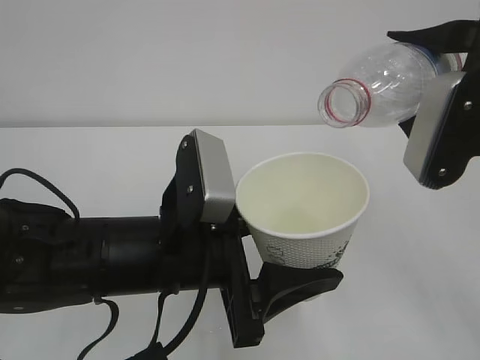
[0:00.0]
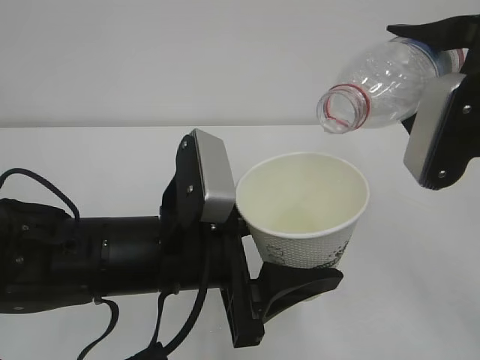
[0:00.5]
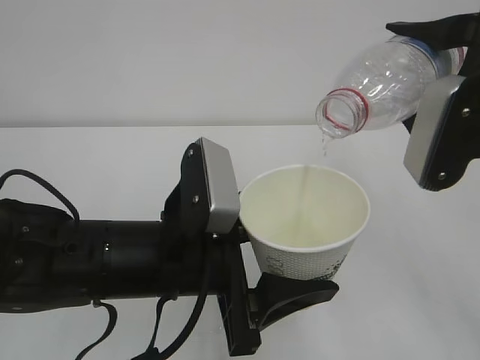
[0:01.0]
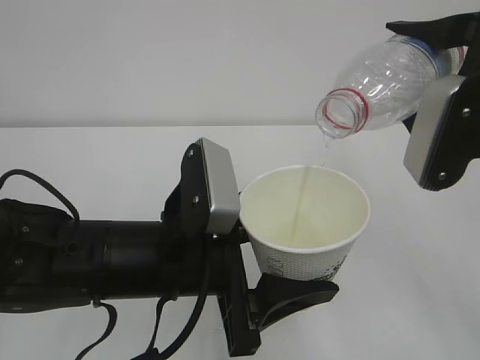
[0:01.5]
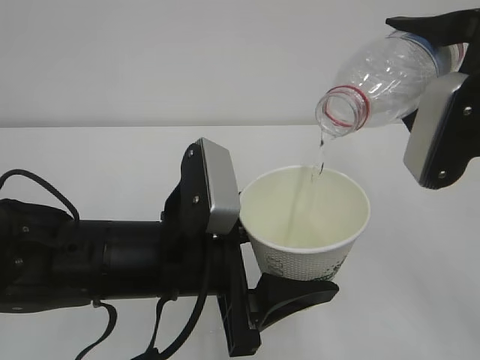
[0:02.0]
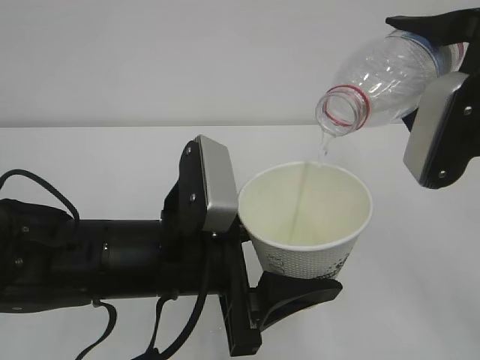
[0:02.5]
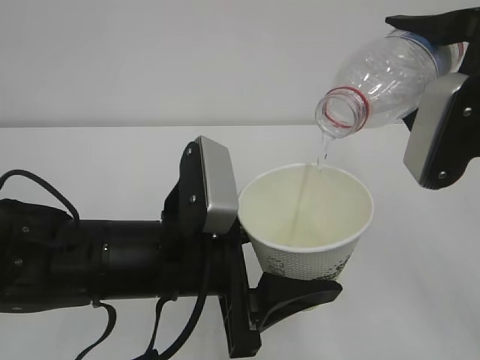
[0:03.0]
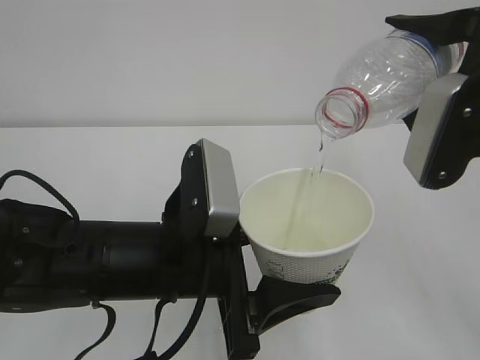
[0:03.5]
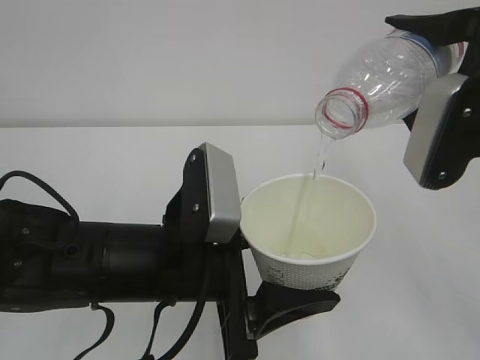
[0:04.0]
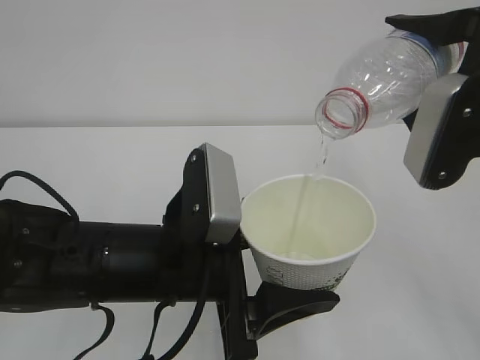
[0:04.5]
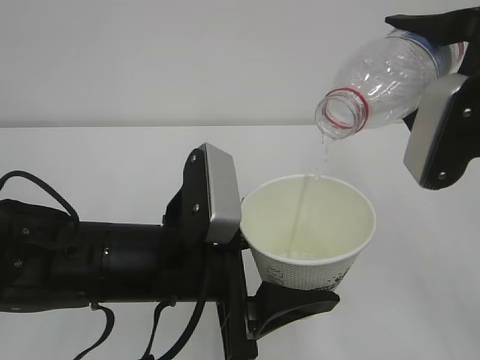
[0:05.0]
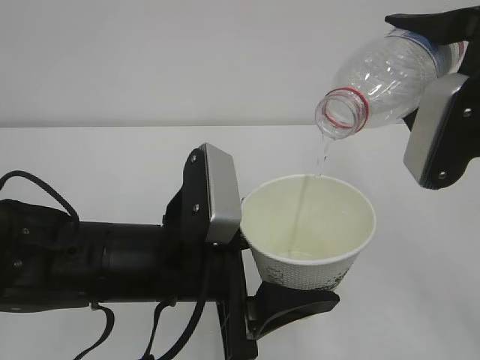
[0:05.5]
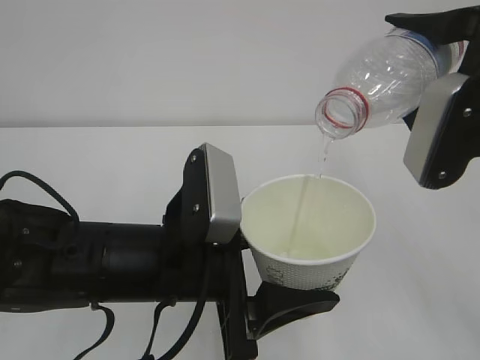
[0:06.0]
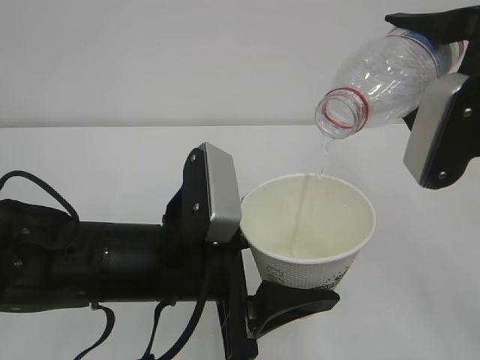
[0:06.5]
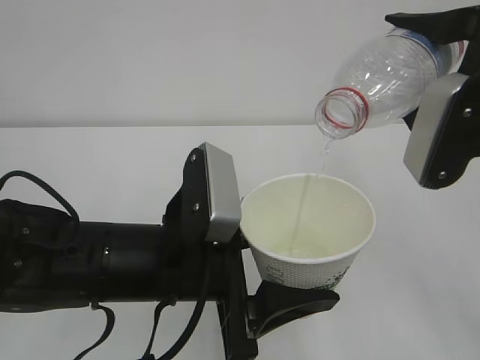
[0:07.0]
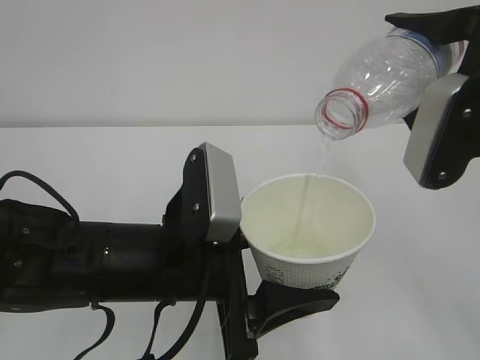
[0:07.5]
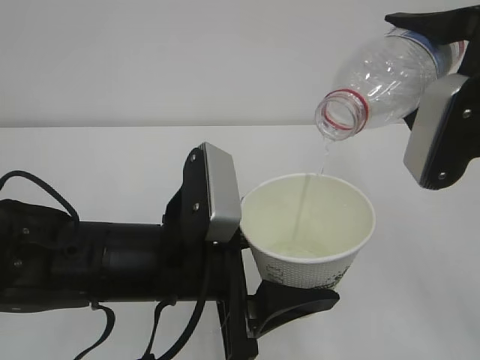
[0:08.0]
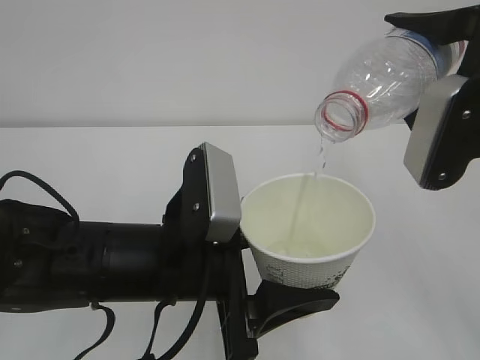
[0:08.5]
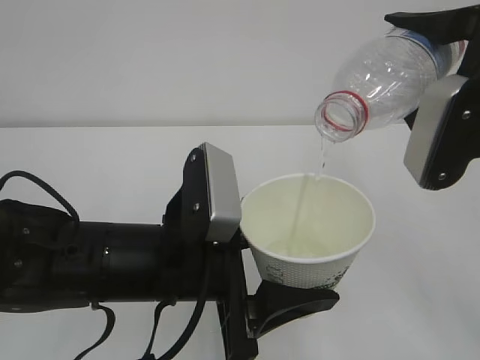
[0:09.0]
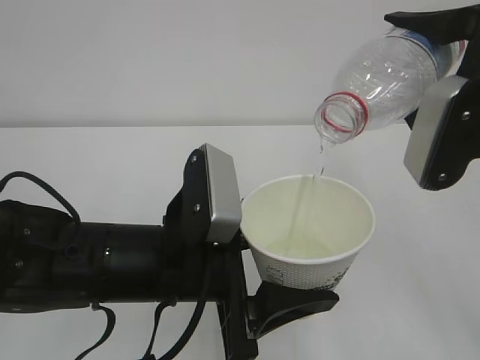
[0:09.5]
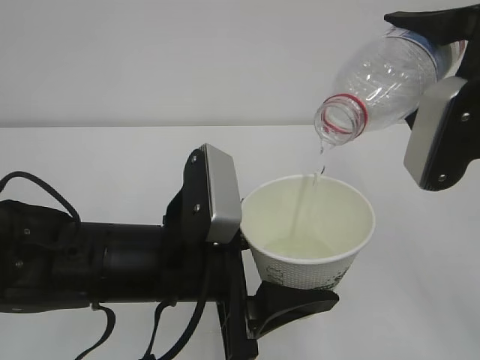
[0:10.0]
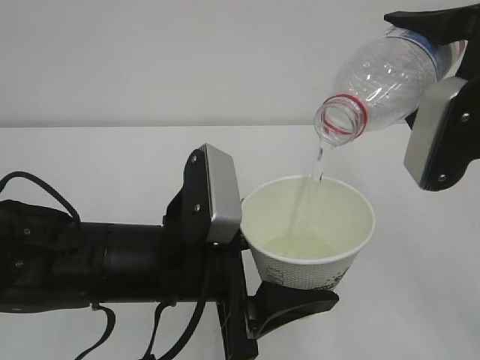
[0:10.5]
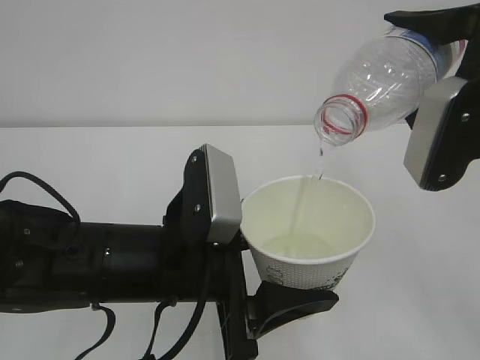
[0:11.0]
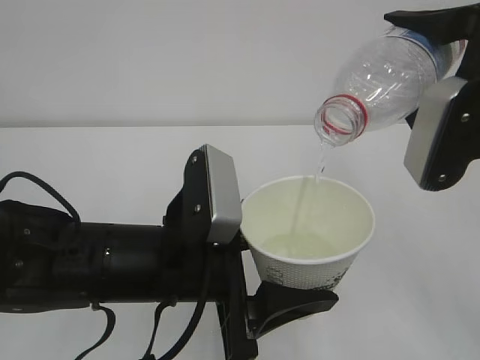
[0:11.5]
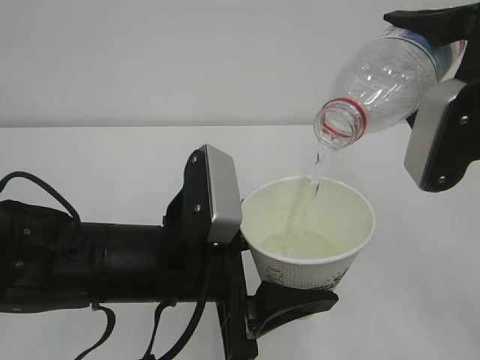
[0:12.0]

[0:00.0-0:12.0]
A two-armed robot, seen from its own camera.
0:00.0 to 0:02.0: The grippers make only small movements.
0:02.0 to 0:10.0: Both grippers stay put.
0:10.0 to 0:12.0: Both grippers stay about where they are.

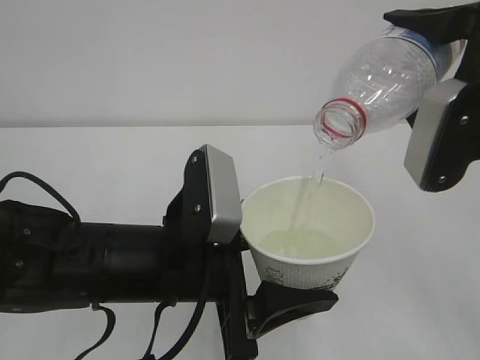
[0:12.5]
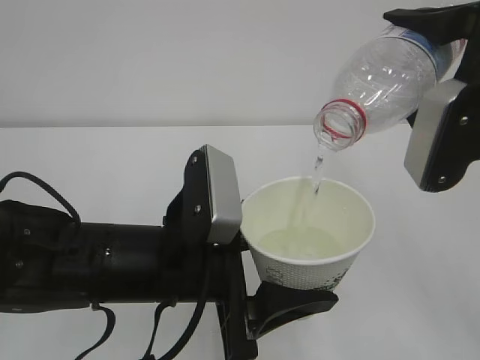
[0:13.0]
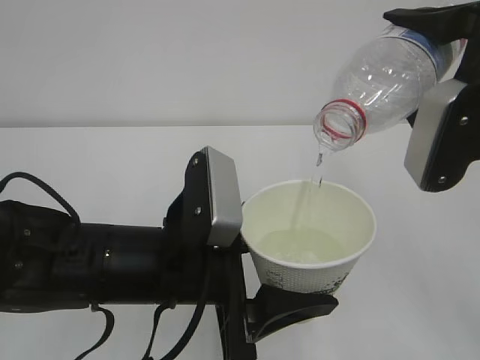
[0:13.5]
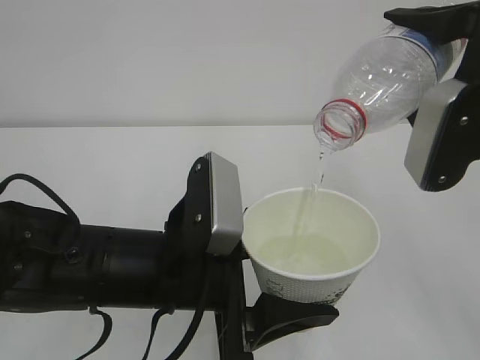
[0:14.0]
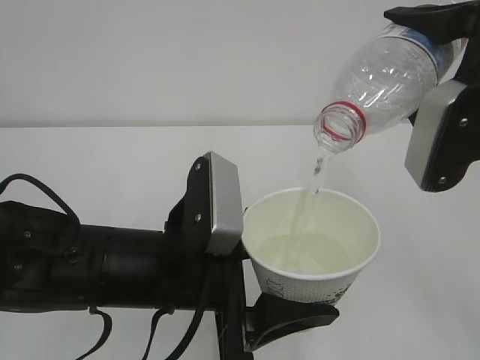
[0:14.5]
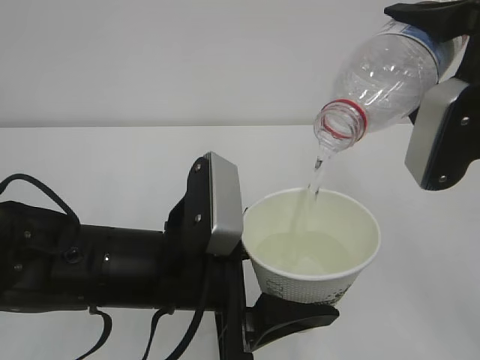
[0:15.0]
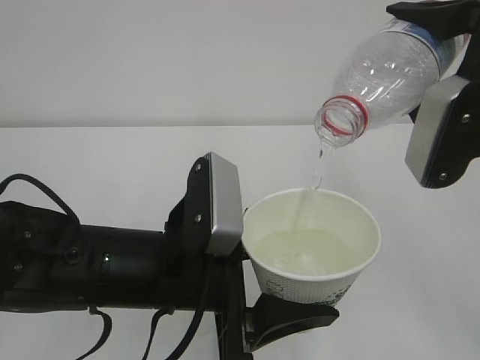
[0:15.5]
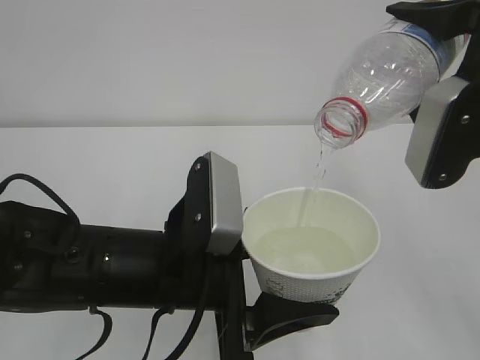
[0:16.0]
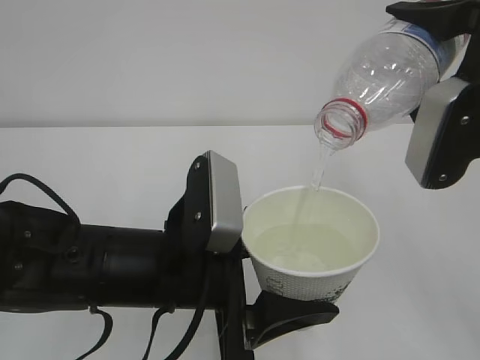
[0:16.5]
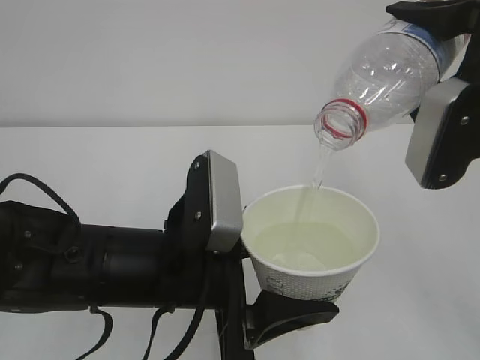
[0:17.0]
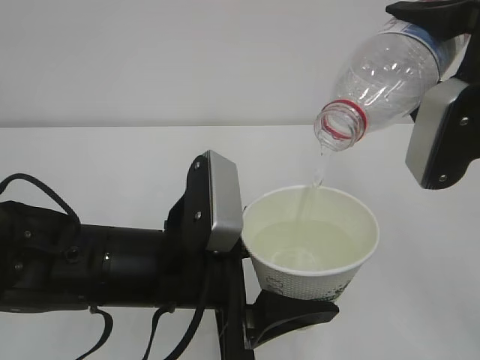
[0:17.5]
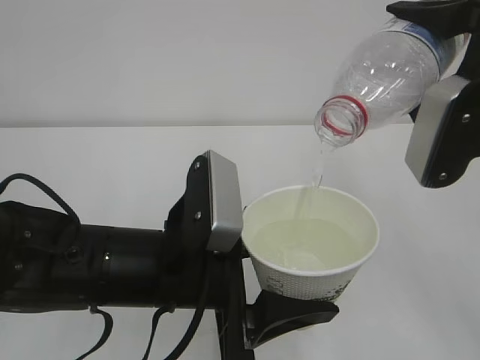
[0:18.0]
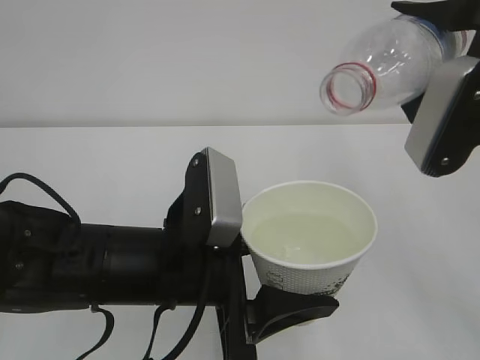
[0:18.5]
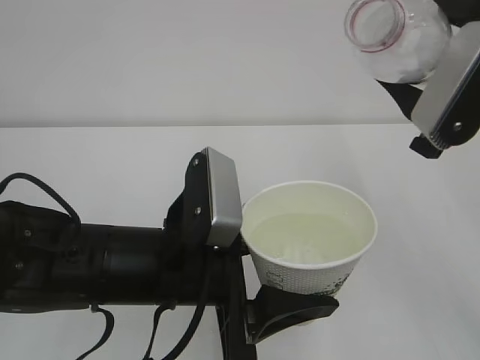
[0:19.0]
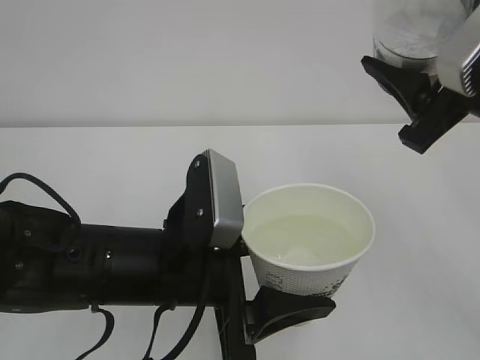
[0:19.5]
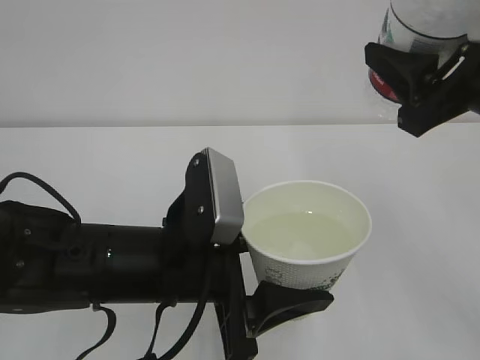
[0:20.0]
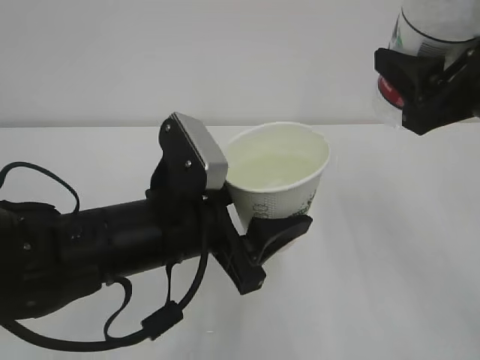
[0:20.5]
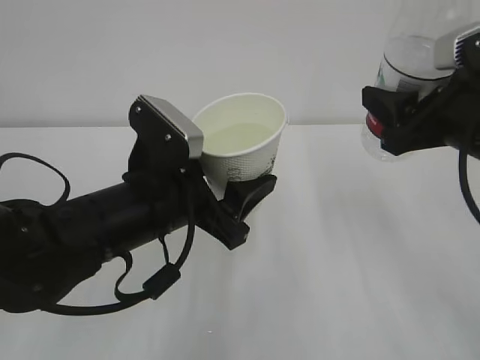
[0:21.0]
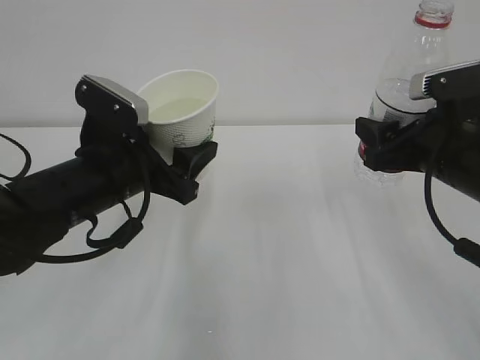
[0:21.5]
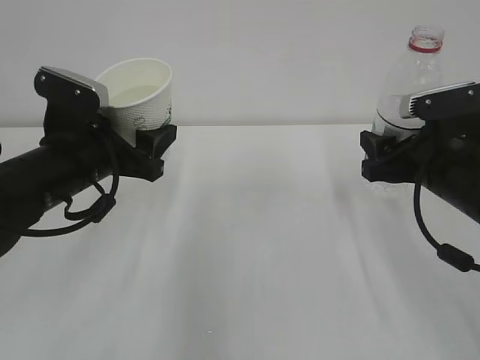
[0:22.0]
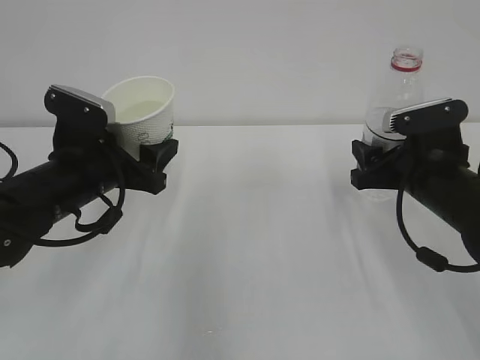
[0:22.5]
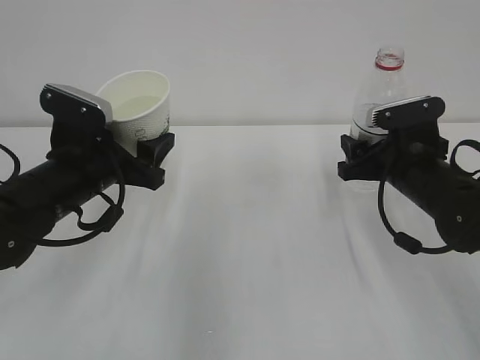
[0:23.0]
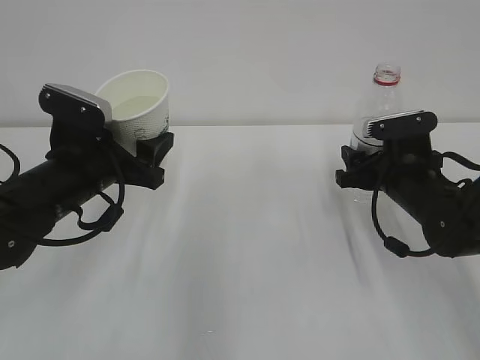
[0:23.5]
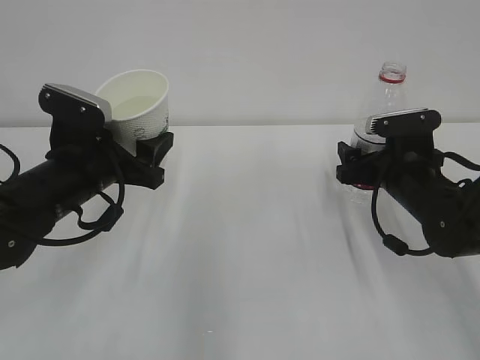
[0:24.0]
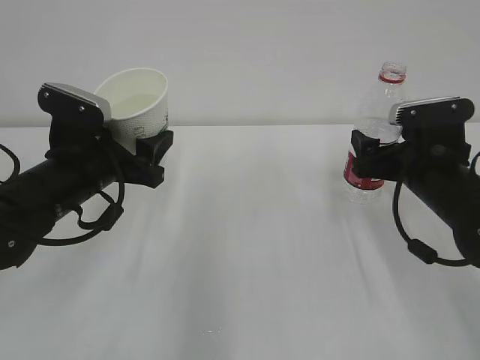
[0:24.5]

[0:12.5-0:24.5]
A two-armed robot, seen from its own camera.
0:12.5 to 0:16.5: Both grippers stay put.
0:16.5 to 0:18.5: The grippers move only a little.
0:20.5 to 0:22.5: The right gripper travels downward and forward by some 15 cm; the left gripper goes about 15 cm to the left and forward.
0:22.5 to 0:24.5: The right gripper opens.

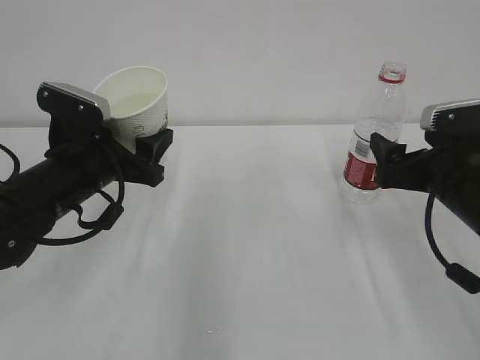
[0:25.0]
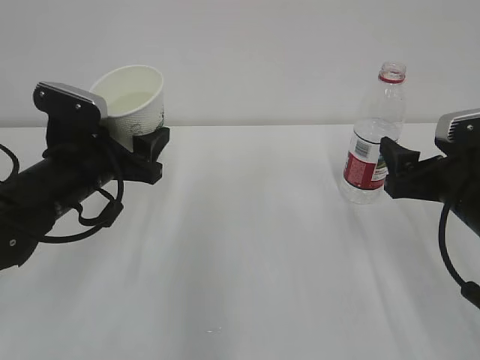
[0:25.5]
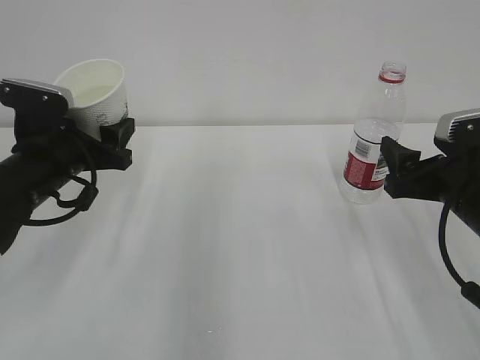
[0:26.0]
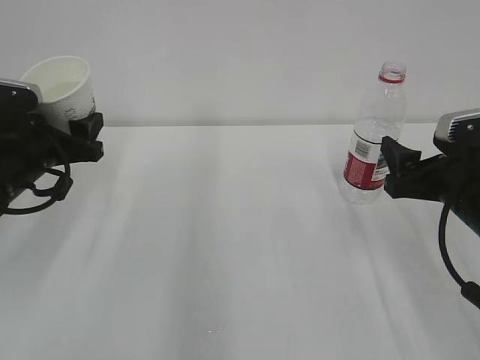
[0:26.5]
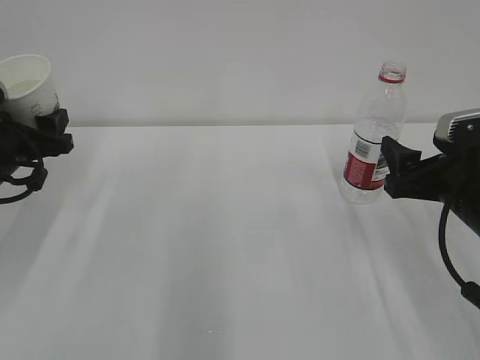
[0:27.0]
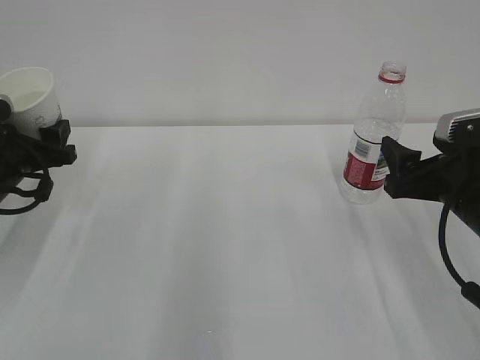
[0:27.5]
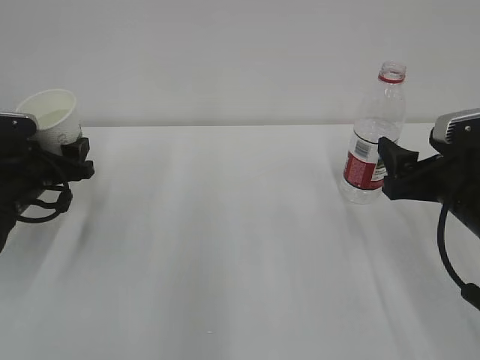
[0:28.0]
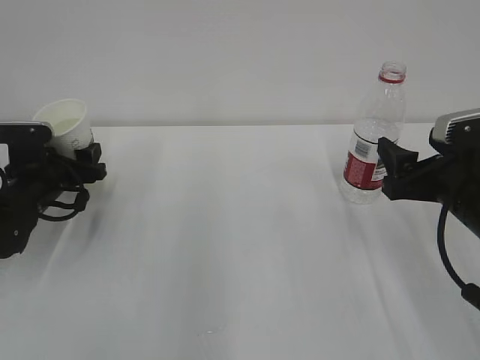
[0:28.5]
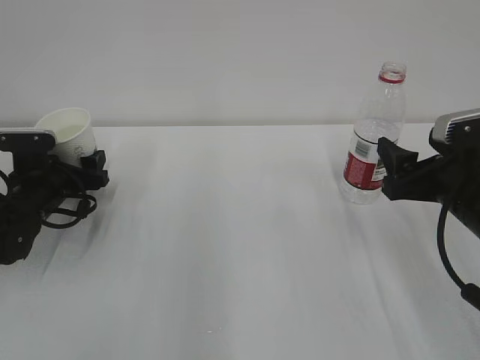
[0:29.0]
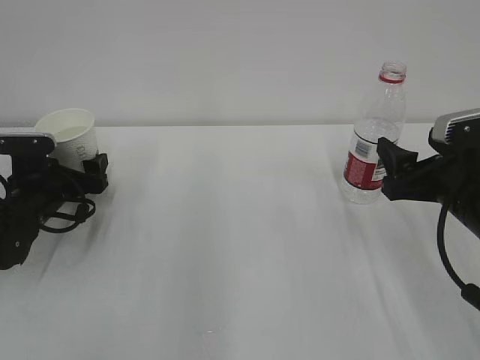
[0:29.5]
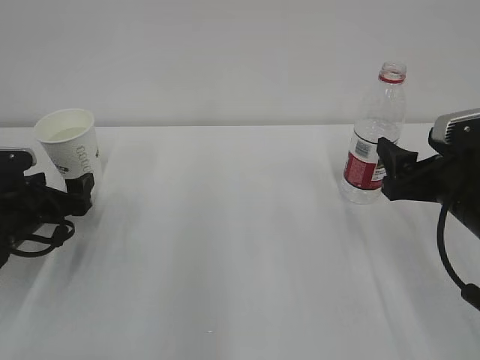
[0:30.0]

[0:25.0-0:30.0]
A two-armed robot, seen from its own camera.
0:25.0 to 0:27.5: The left gripper moves to the left, some 10 cm, while the right gripper closes up.
0:27.5 to 0:30.0: The left gripper goes about 5 cm downward, and opens.
